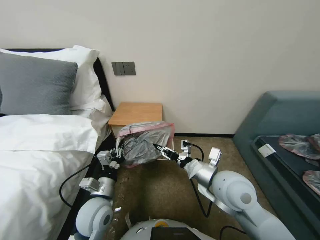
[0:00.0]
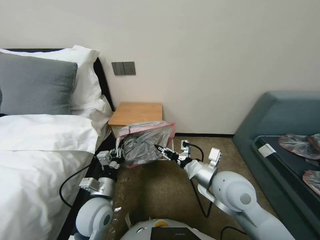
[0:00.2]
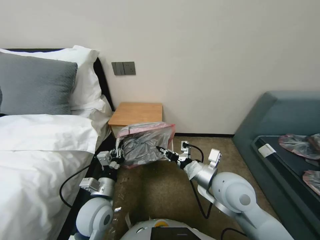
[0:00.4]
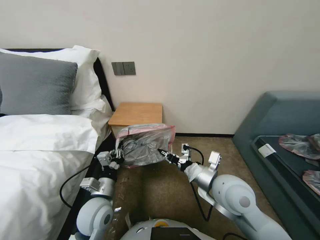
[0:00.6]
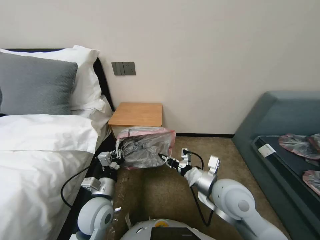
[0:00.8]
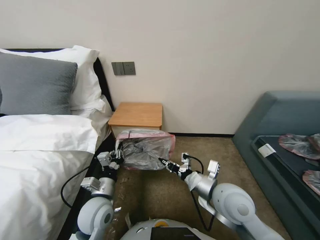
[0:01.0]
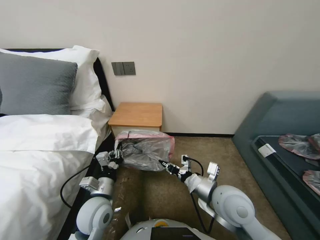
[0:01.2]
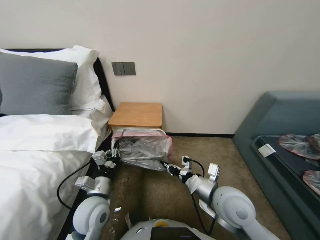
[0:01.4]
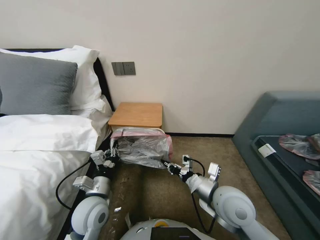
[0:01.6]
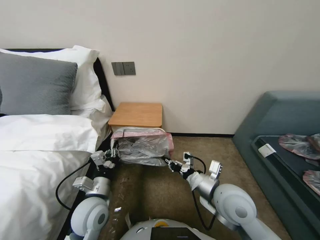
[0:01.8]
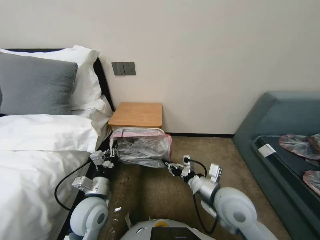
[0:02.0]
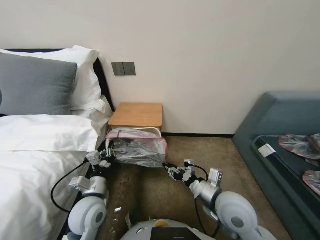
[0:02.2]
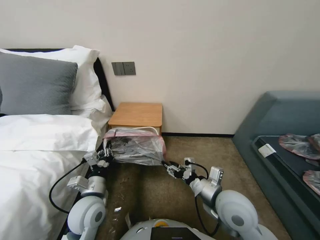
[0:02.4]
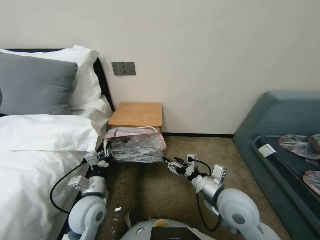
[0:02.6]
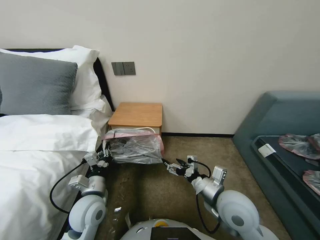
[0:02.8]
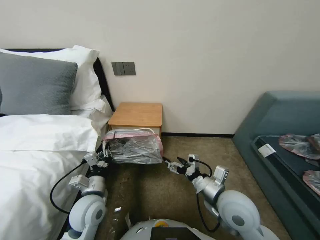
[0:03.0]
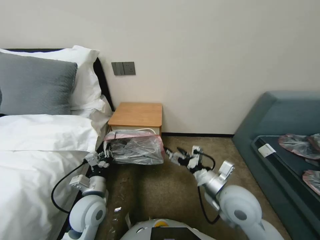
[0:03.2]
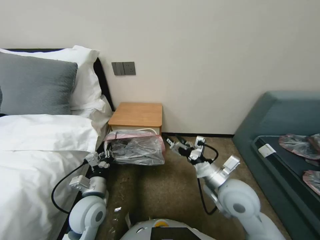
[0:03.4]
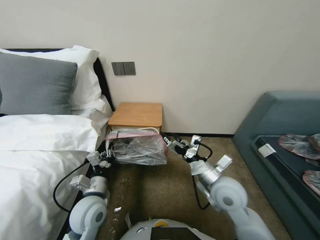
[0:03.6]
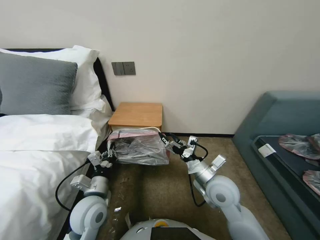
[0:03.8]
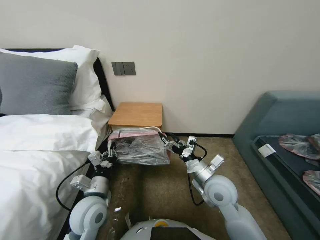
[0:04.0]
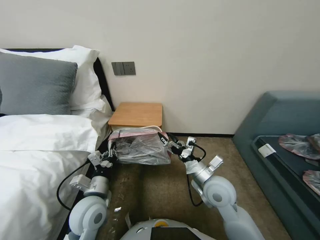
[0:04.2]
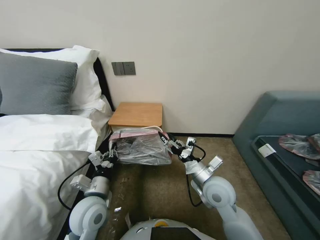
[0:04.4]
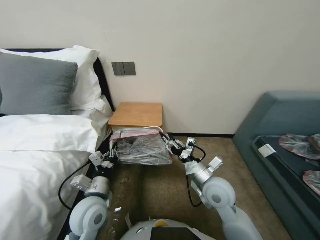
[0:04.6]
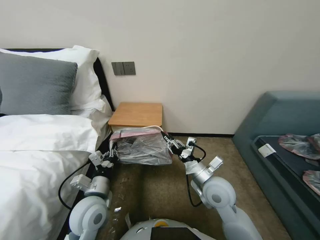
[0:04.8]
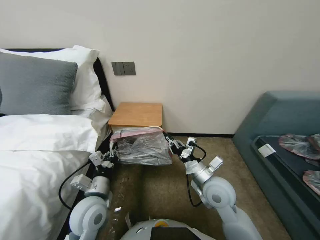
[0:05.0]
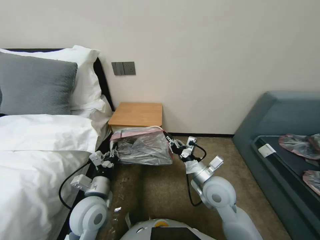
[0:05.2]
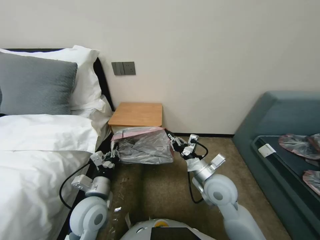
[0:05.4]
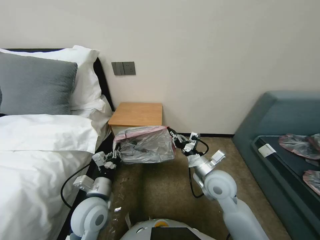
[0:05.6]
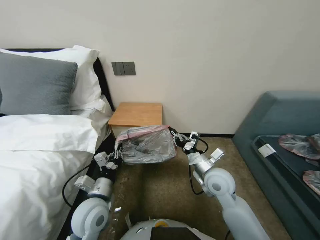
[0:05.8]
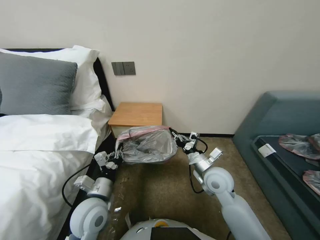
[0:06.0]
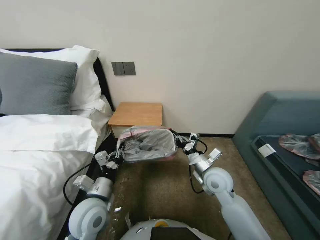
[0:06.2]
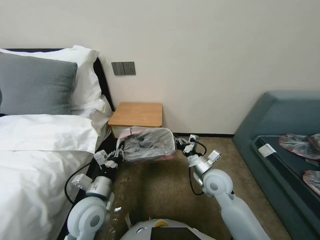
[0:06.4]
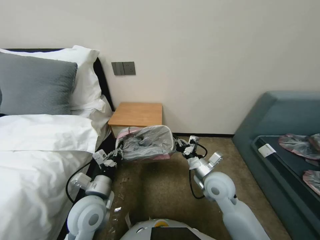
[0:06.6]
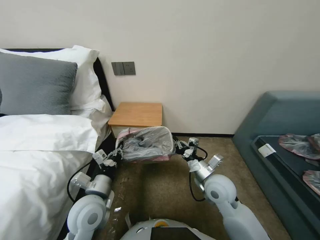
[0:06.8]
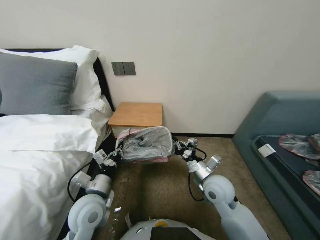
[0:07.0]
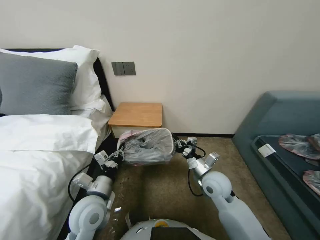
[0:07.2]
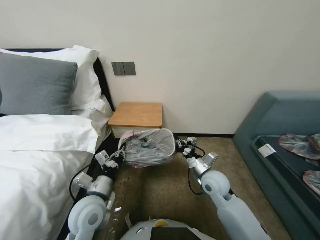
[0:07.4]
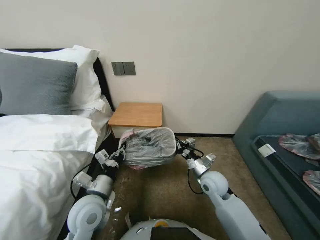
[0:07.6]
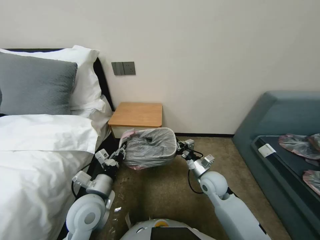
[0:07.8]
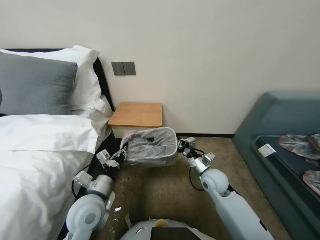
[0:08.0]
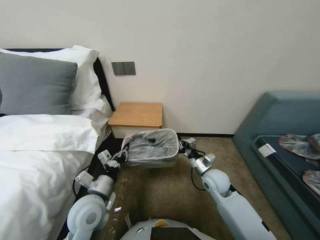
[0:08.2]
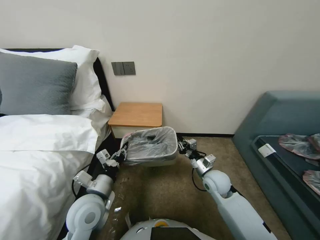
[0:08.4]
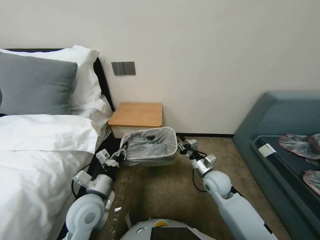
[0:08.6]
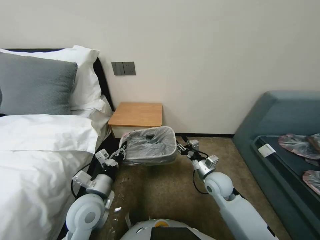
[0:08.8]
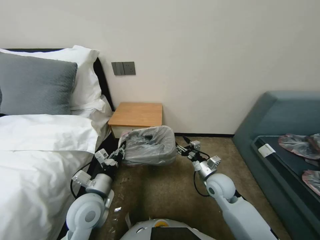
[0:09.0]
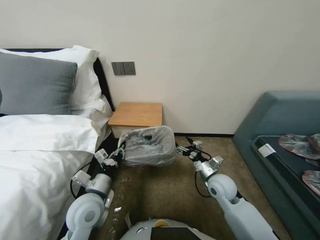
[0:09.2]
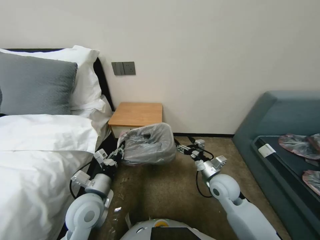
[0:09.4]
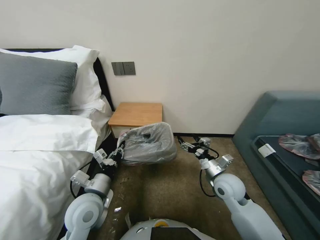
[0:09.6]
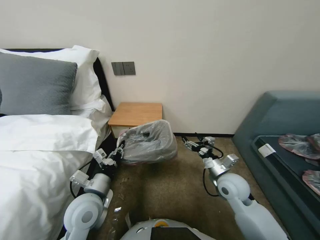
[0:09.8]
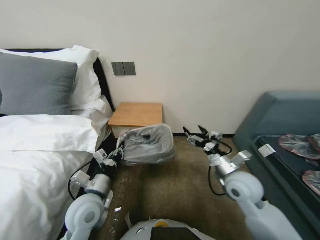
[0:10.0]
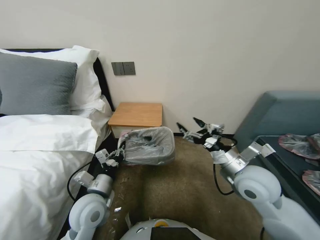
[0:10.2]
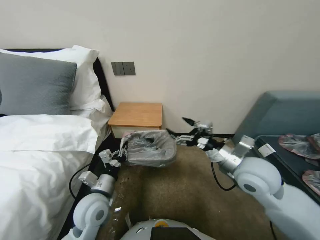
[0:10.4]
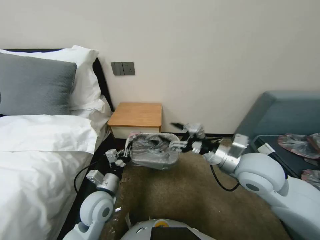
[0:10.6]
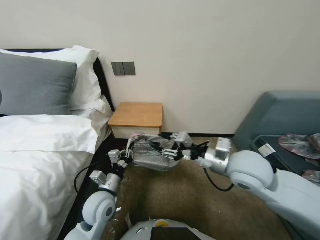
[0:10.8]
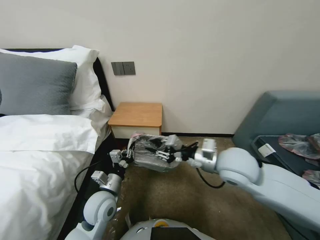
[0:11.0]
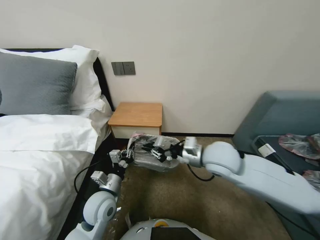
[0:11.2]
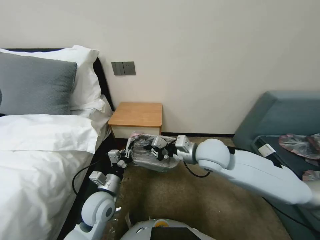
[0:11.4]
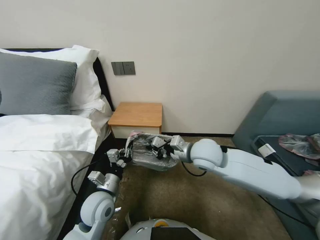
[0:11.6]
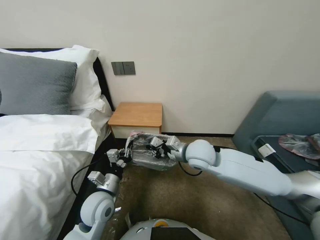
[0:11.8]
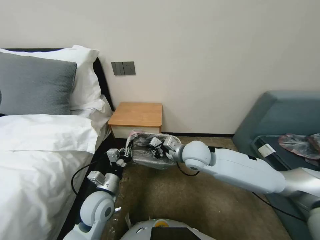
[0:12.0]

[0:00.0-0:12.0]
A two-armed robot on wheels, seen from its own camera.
Task of the whole recording: Pick up the garbage bag from the table and place it over the trash can.
0:00.0 to 0:01.6: The right gripper ends up roughly 5 cm from where it was, and closes its fingers.
0:01.6 to 0:03.0: The right gripper opens up.
0:03.0 to 0:04.4: The right gripper is displaced forward by roughly 5 cm.
0:04.4 to 0:06.0: The right gripper closes up.
0:06.0 to 0:07.6: The grippers stay close to where they were, moving slightly.
0:07.6 to 0:09.0: The right gripper opens its fingers.
0:09.0 to 0:10.4: The right gripper travels upward by approximately 15 cm.
0:10.4 to 0:12.0: The right gripper shifts about 15 cm to the left and forward, and closes.

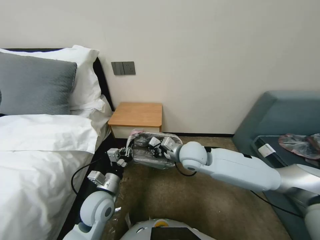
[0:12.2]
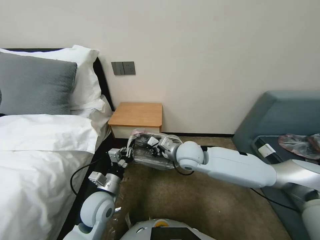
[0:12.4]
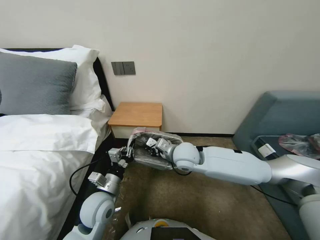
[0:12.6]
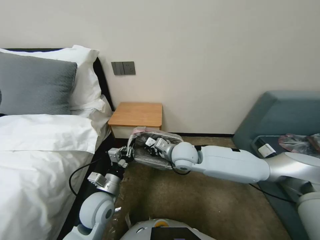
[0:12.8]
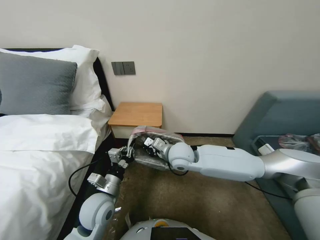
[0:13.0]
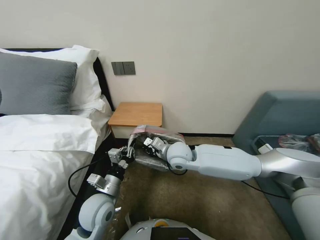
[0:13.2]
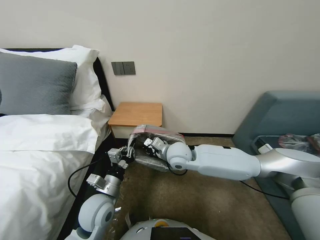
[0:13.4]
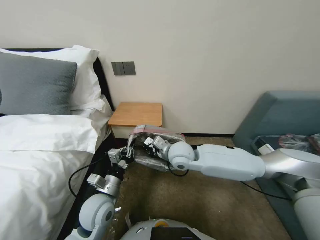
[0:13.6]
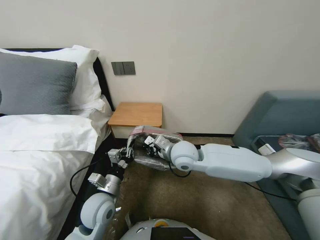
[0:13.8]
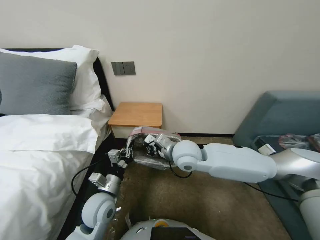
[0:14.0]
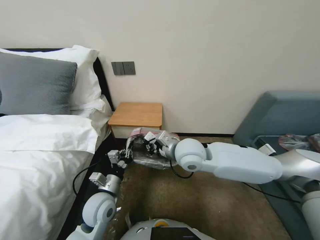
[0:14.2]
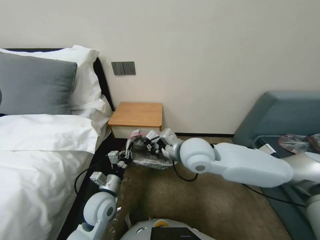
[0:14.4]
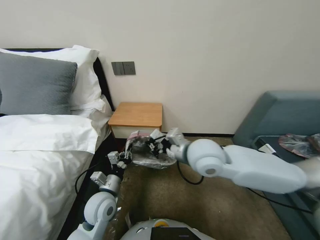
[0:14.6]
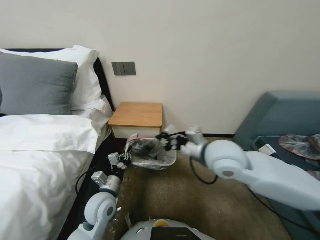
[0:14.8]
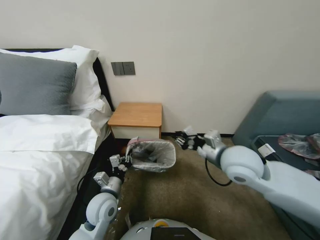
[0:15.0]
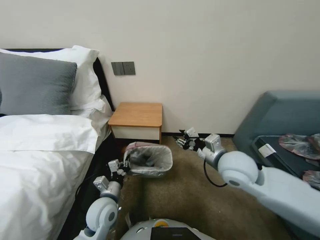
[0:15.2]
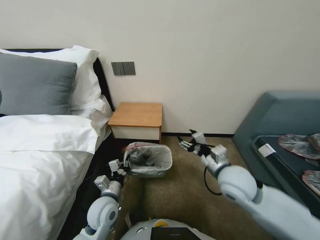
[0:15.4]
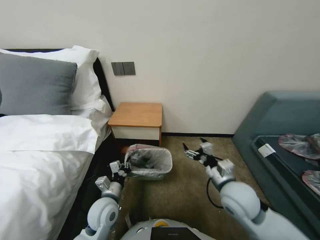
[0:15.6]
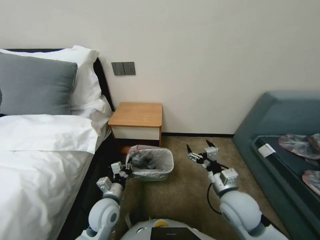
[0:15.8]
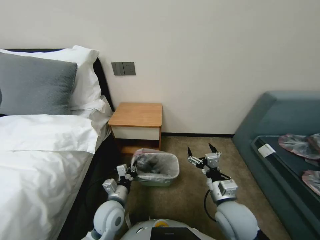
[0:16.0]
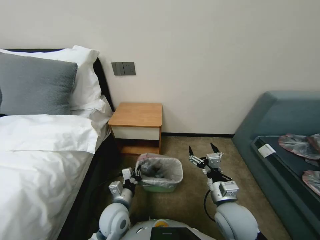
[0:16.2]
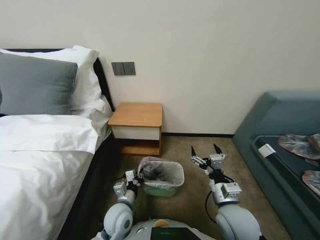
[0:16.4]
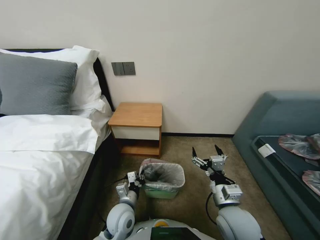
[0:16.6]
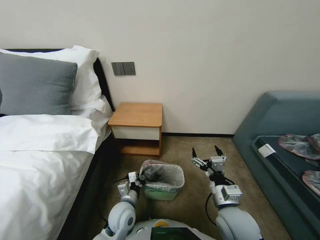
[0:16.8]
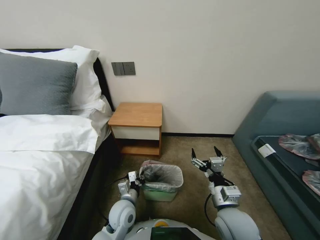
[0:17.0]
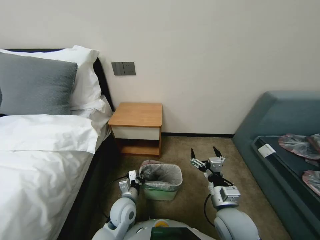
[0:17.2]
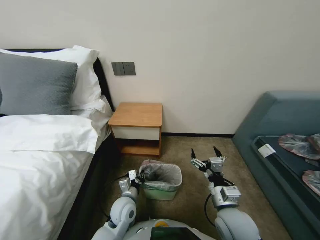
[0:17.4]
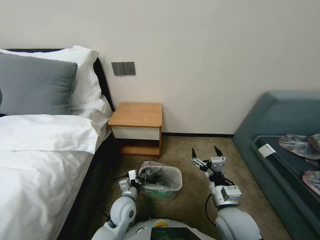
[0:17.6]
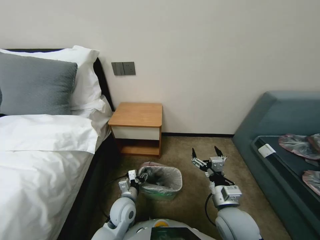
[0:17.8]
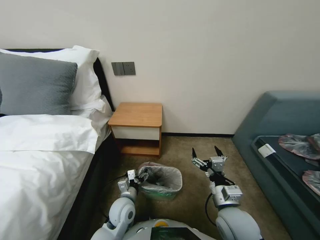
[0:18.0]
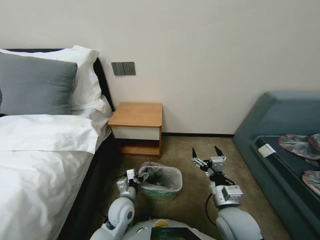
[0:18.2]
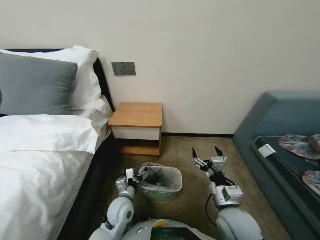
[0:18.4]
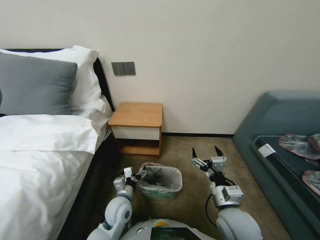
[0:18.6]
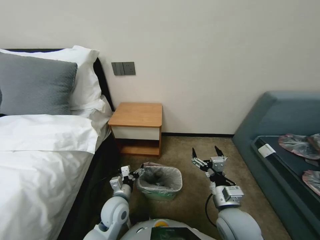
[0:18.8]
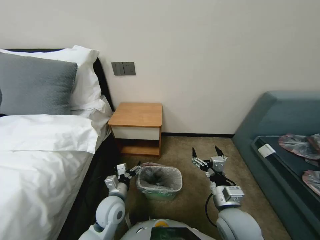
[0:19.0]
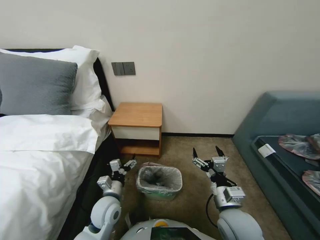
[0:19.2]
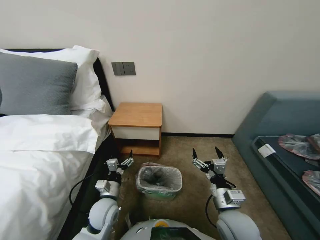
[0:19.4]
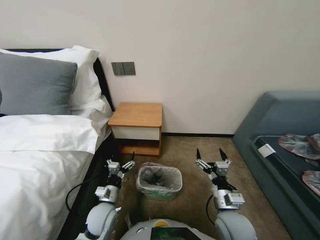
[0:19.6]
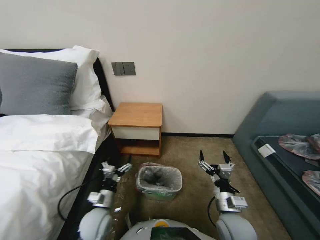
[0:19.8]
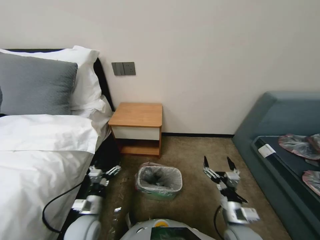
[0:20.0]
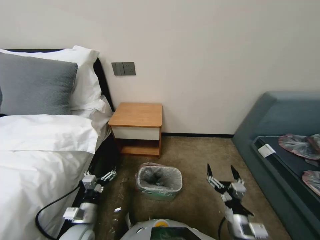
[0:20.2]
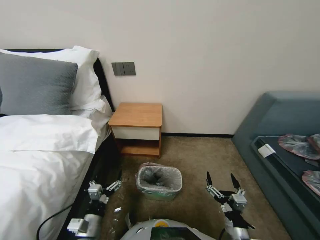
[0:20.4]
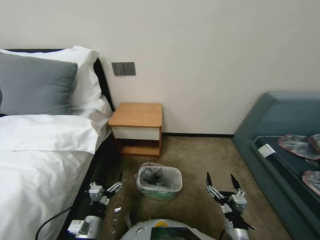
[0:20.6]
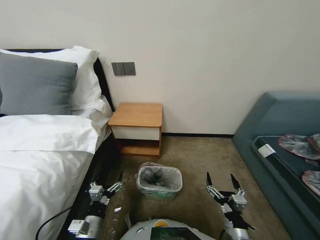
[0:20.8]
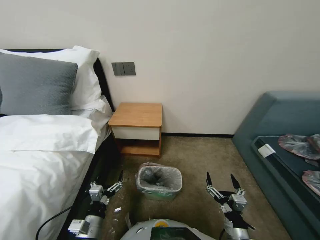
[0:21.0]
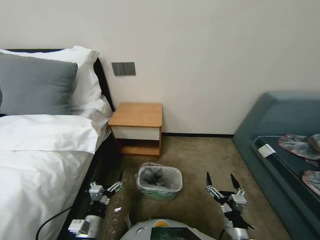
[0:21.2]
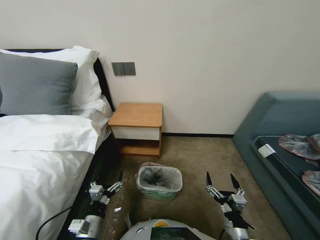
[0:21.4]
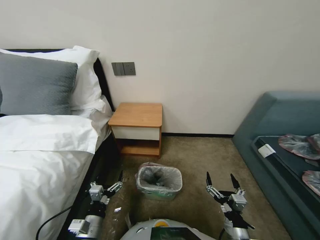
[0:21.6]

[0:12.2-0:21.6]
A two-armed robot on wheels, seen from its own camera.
Task of the whole recording: Pick up the garbage bag from the table and place it over the trash can.
0:12.2 to 0:13.8: The grippers move only a little.
0:13.8 to 0:15.4: The right gripper goes about 15 cm to the right and backward, and opens.
0:15.4 to 0:17.0: The left gripper moves to the right, about 5 cm. Meanwhile the right gripper heads backward and downward, covering approximately 15 cm, and opens its fingers.
0:17.0 to 0:18.4: The left gripper opens up.
0:18.4 to 0:20.0: The right gripper goes roughly 5 cm downward. Meanwhile the left gripper shifts about 10 cm to the left and backward.
0:20.0 to 0:21.6: Both grippers move backward, some 5 cm.

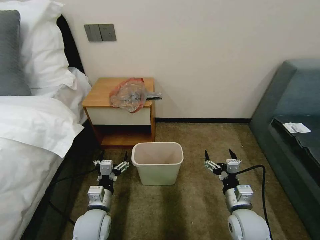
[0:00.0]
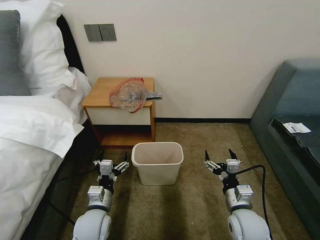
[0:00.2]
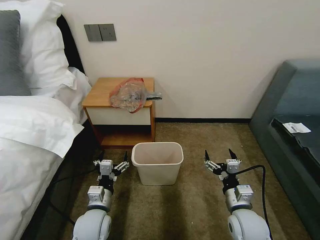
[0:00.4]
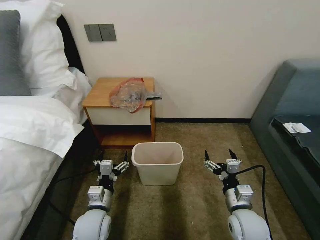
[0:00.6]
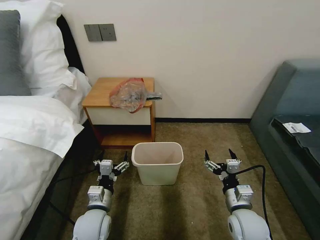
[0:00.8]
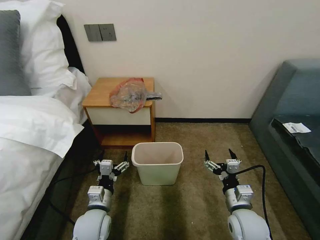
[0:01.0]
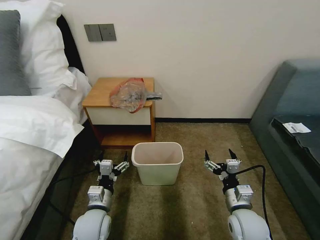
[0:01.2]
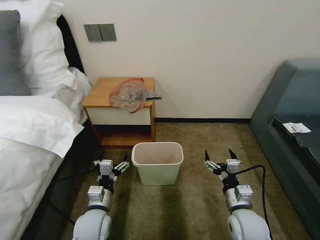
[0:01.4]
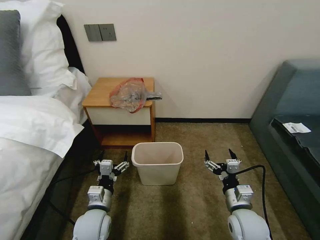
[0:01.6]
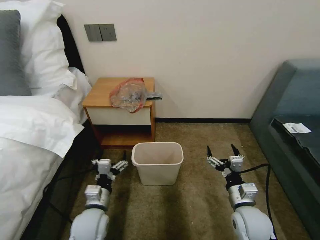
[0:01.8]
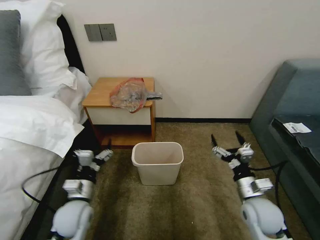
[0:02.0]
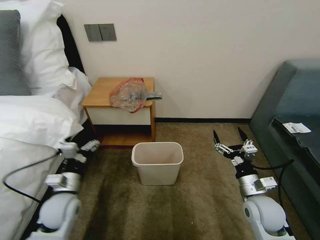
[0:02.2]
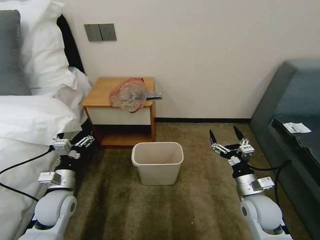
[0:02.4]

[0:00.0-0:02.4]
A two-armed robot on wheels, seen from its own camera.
Task of the whole recording: Pick up the garbage bag from the table and place it over the trash can.
0:01.2 to 0:02.4: The right gripper ends up approximately 5 cm from where it was. The left gripper moves to the left, some 10 cm.
